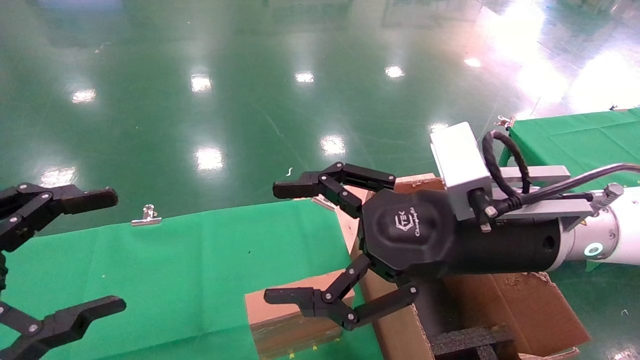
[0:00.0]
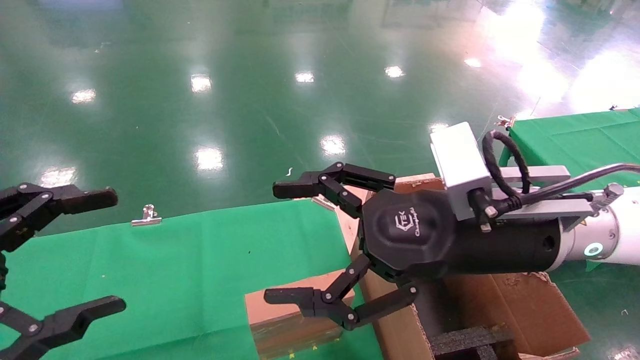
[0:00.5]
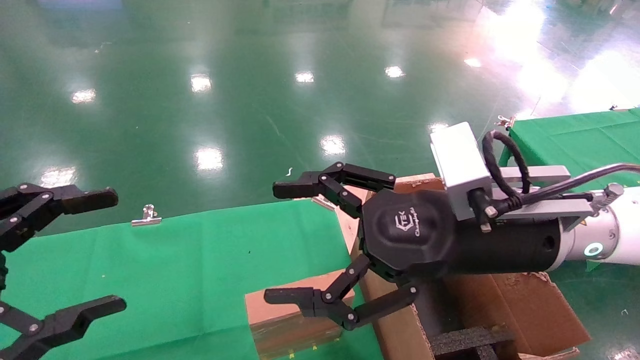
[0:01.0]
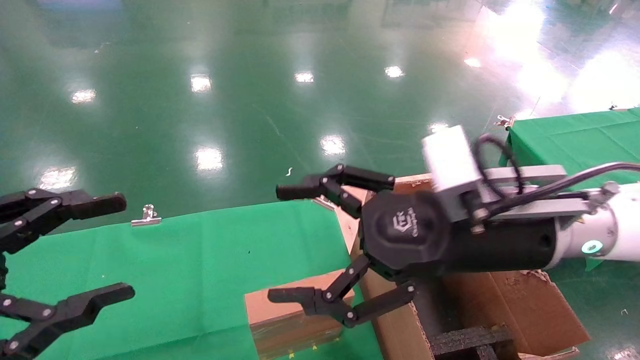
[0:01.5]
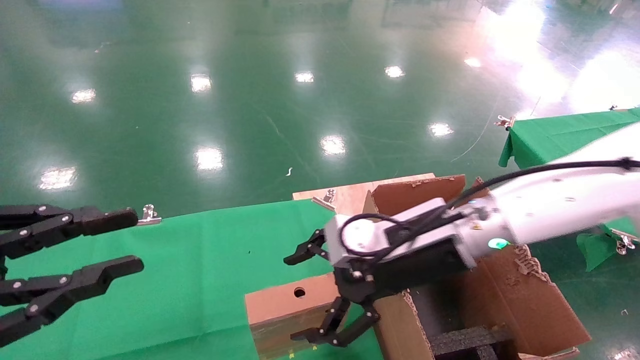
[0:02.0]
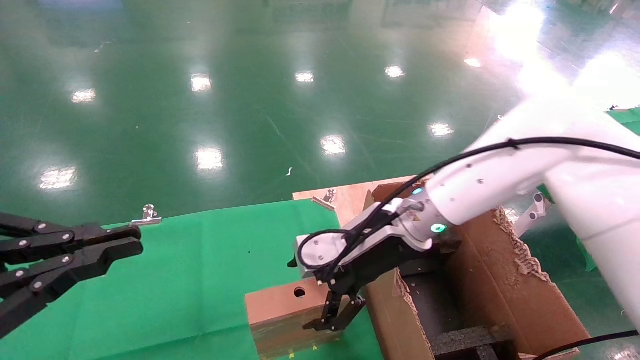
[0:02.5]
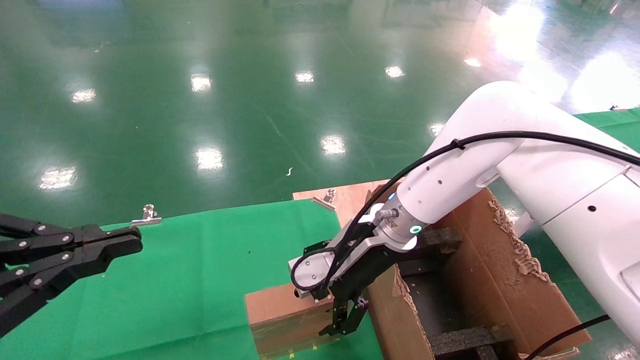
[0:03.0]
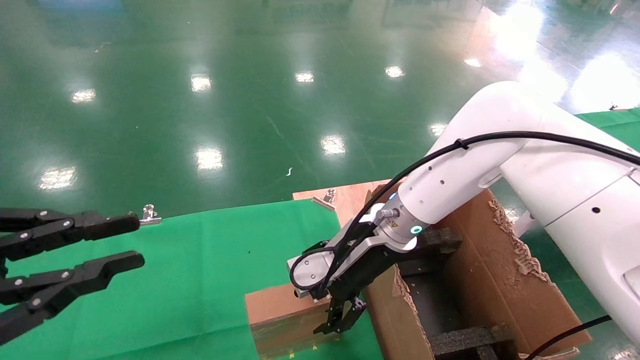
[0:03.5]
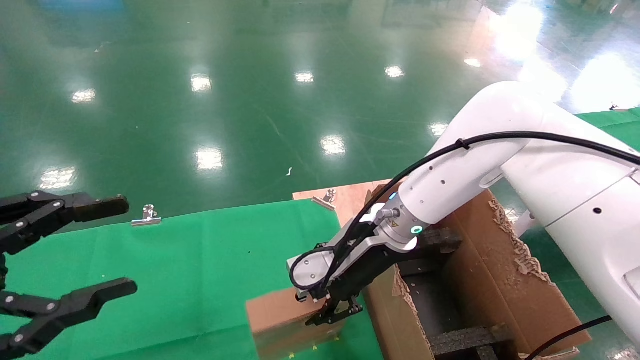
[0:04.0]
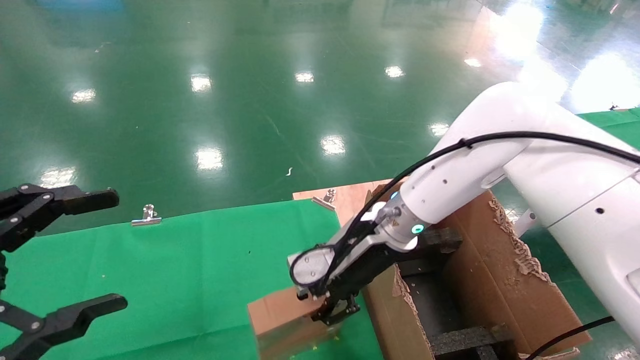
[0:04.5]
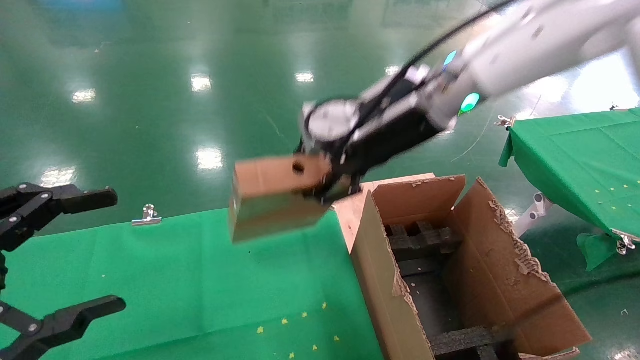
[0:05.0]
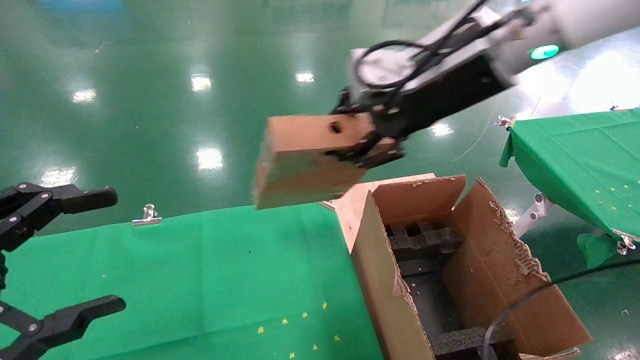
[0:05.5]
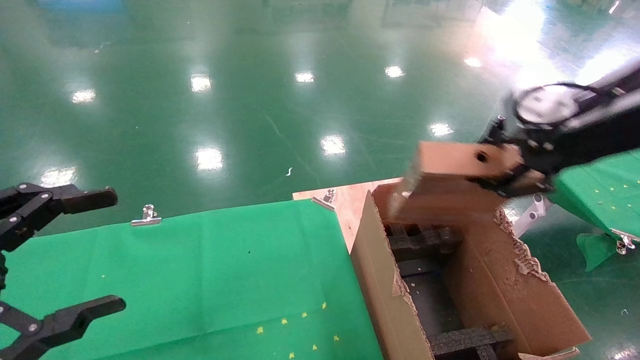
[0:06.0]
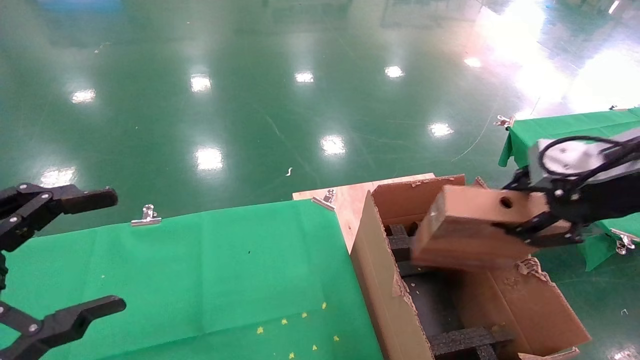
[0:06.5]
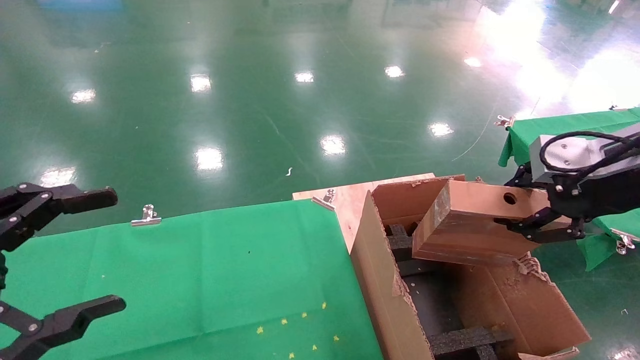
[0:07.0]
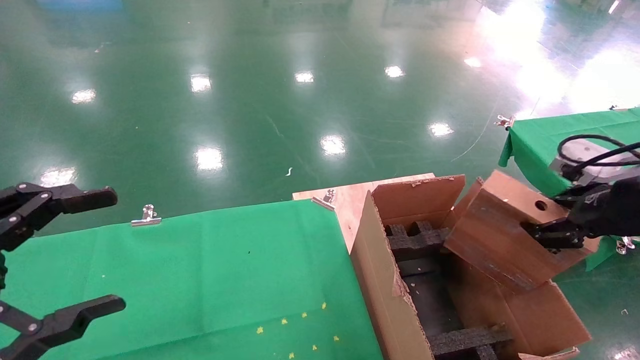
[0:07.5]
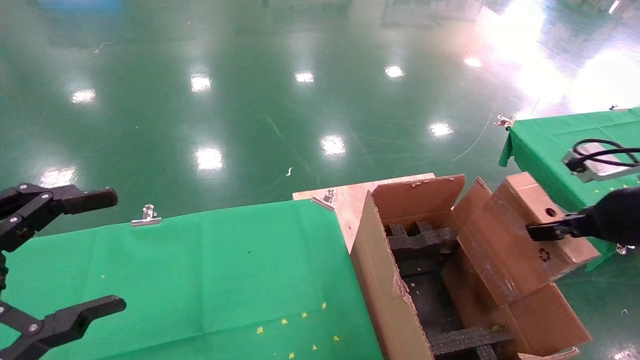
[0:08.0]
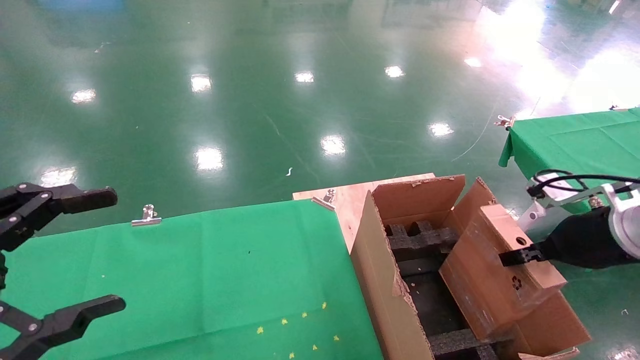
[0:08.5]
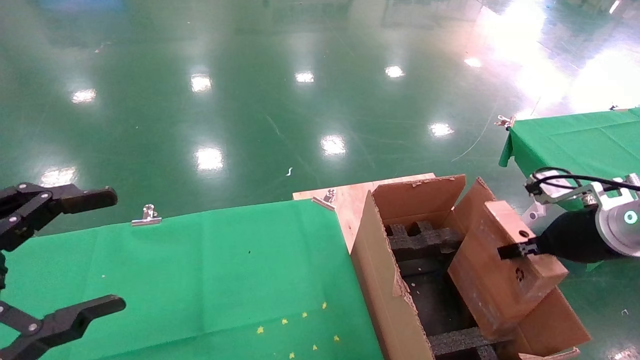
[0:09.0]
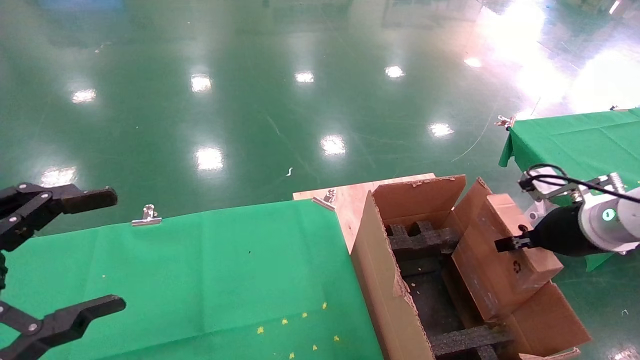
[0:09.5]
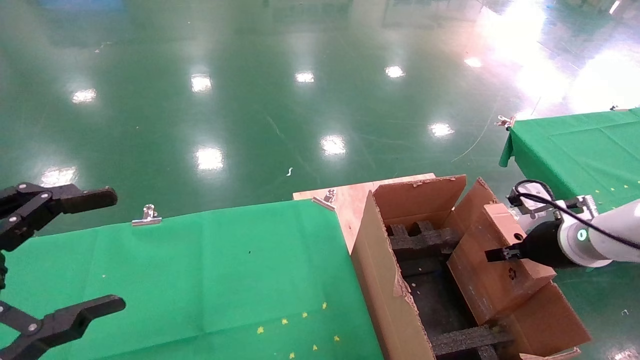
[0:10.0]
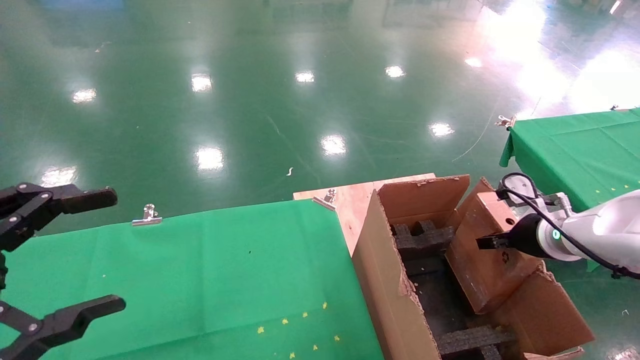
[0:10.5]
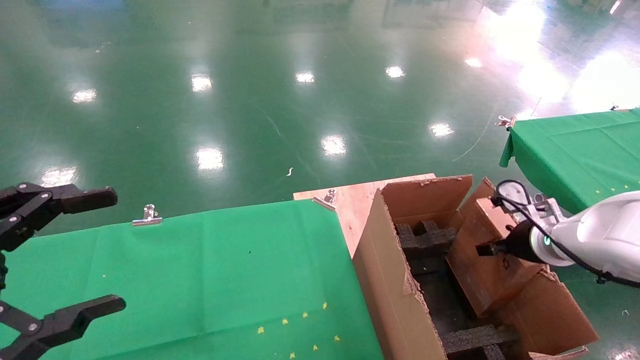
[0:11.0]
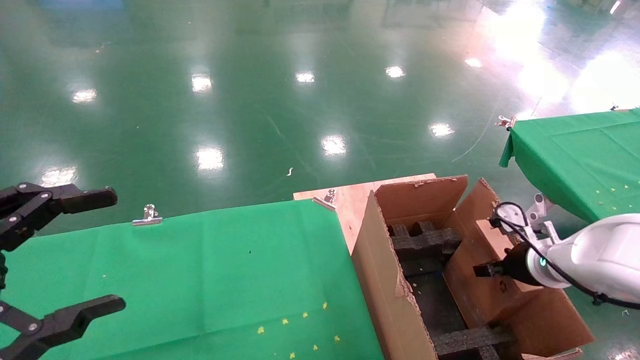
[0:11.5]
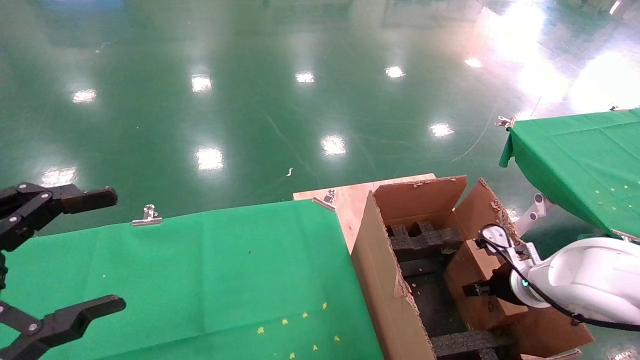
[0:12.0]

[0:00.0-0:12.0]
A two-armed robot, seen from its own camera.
Task of the whole recording: using a robotic arm to pick up a cardboard box and palace it the carton.
Step, 0:01.5 to 0:04.0: Pick up the mouse and the power cord paper box.
0:00.0 to 0:02.0: The right gripper is displaced forward by roughly 5 cm, while the left gripper closes up.
0:02.0 to 0:04.0: The right gripper heads forward, covering about 5 cm, and closes up, while the left gripper closes and opens again.
0:04.0 to 0:06.0: The left gripper opens, while the right gripper moves to the right, upward and backward, some 30 cm, and closes.
0:06.0 to 0:08.0: The right gripper goes about 15 cm downward and to the right.
0:08.0 to 0:10.0: The right gripper travels downward and forward by some 10 cm.
0:10.0 to 0:12.0: The right gripper moves downward, approximately 10 cm.

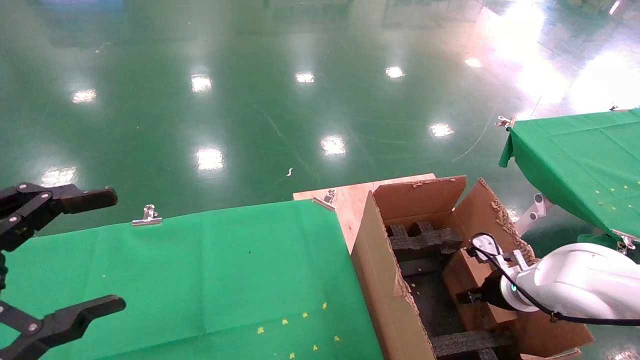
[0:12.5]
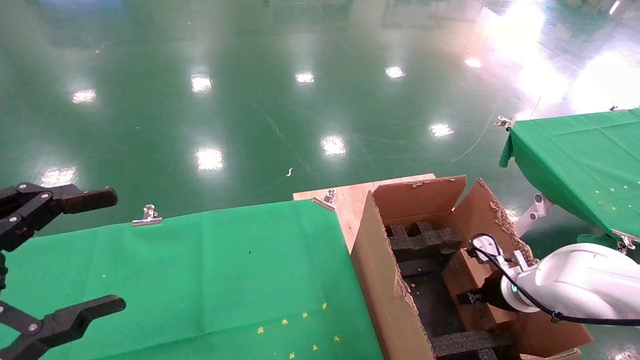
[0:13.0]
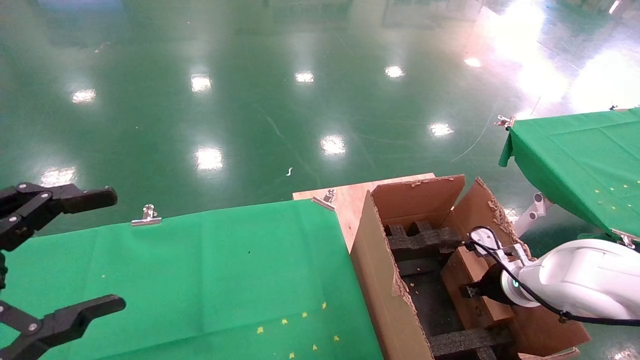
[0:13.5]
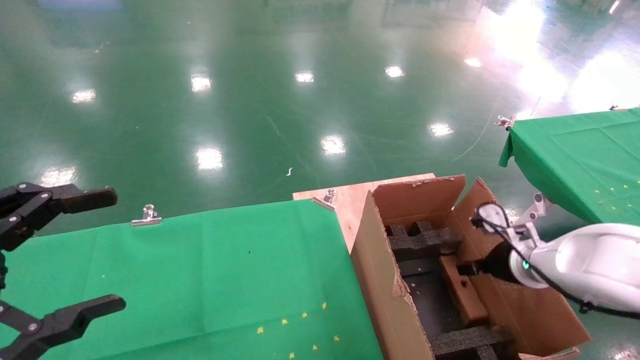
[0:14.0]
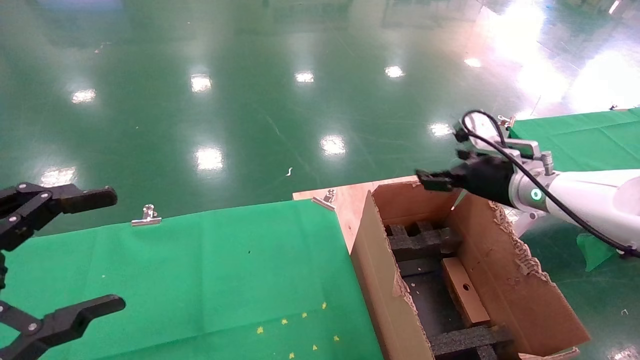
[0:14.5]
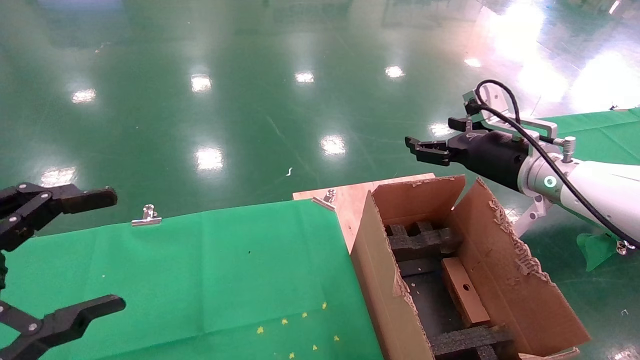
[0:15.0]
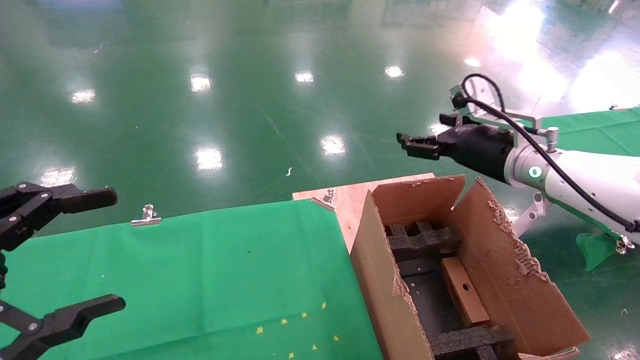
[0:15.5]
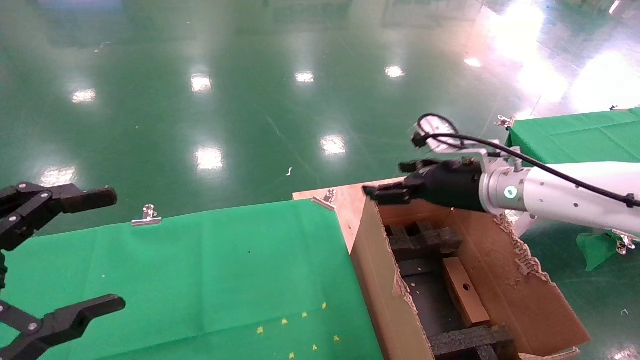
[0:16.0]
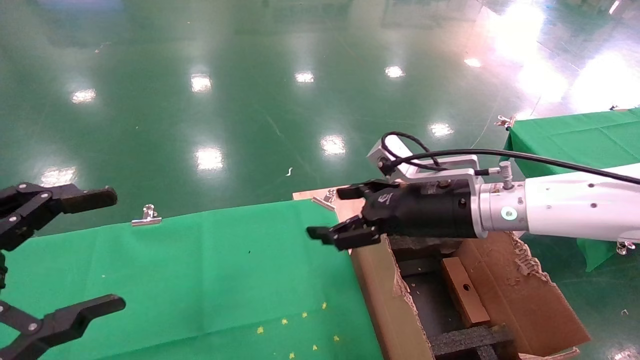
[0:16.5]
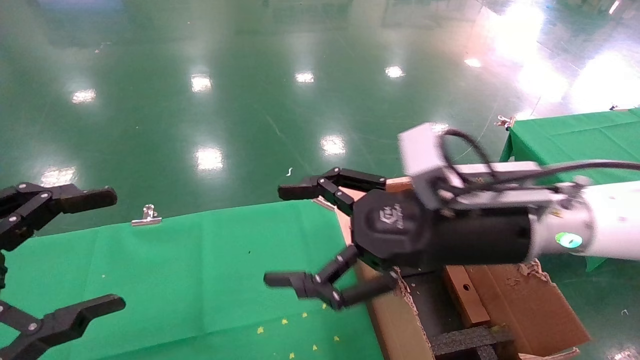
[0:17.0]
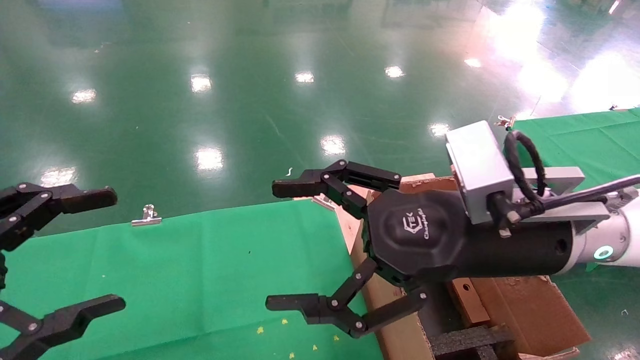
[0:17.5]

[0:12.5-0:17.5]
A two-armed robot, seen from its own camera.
Task of the whole recording: using a robotic arm to pick up a cardboard box and palace it the carton.
0:12.5 to 0:15.0: The right gripper heads upward, covering about 25 cm, and opens its fingers.
0:15.0 to 0:17.5: The right gripper heads backward and to the left, covering approximately 20 cm.
